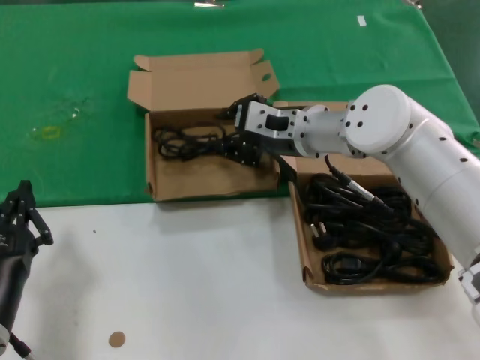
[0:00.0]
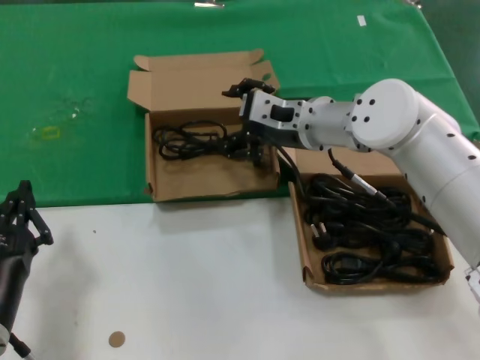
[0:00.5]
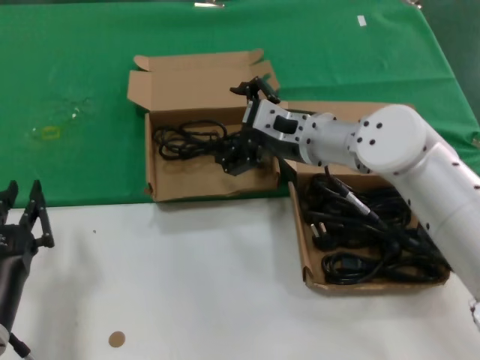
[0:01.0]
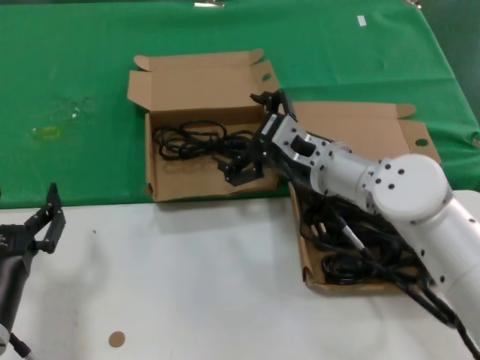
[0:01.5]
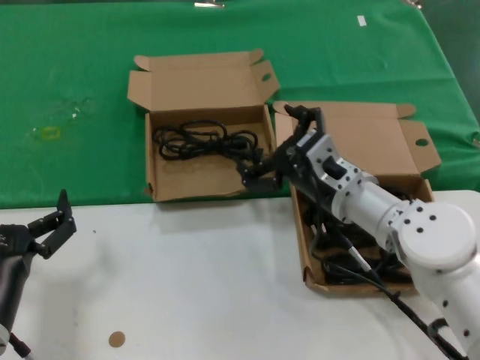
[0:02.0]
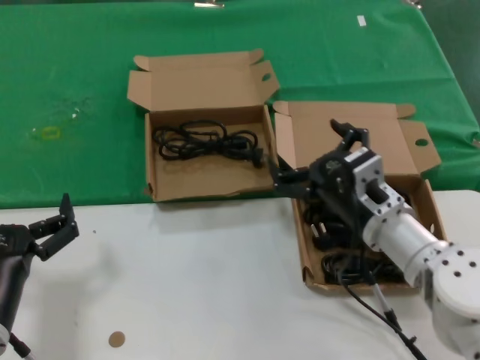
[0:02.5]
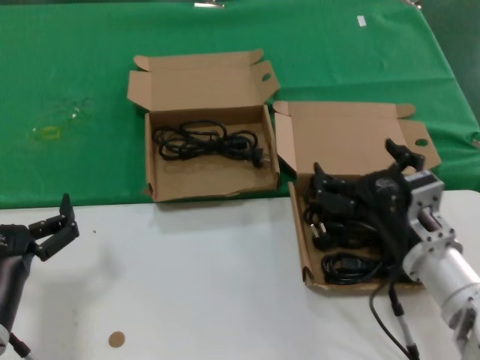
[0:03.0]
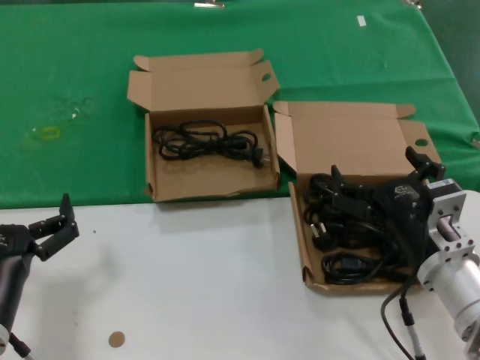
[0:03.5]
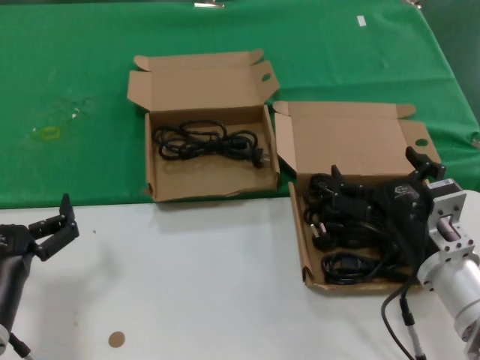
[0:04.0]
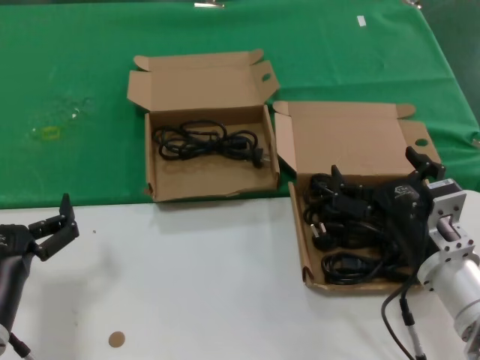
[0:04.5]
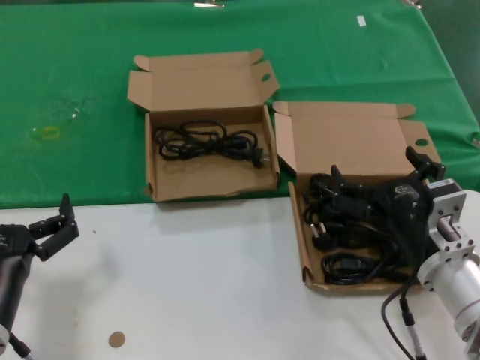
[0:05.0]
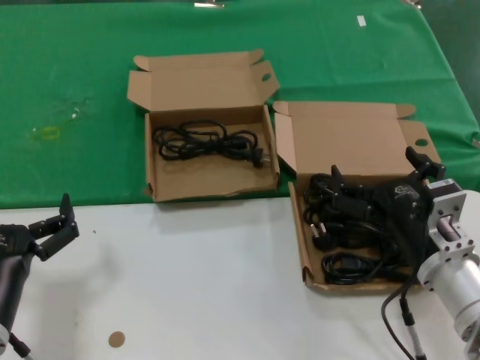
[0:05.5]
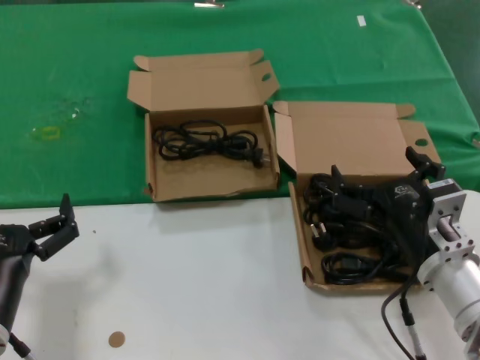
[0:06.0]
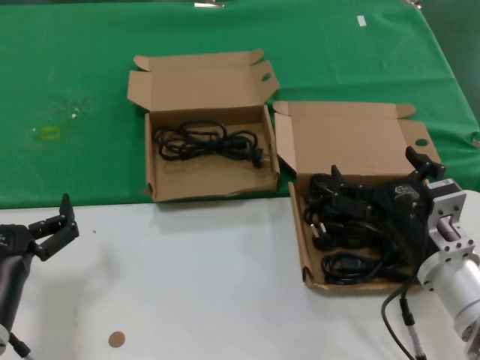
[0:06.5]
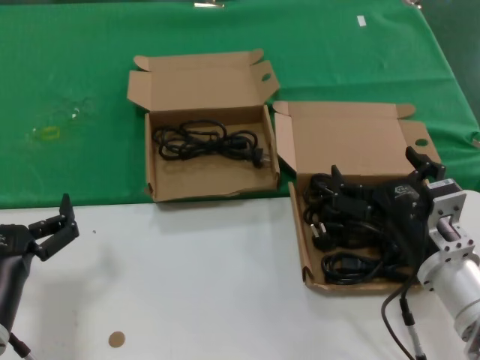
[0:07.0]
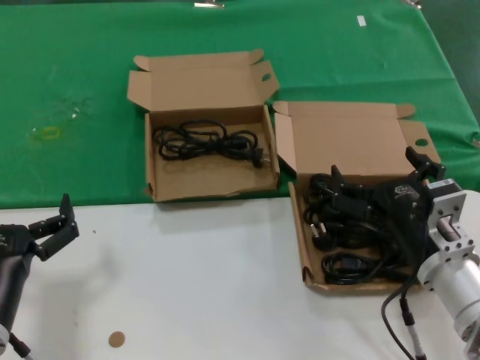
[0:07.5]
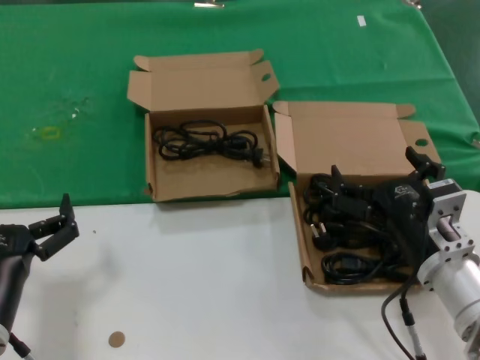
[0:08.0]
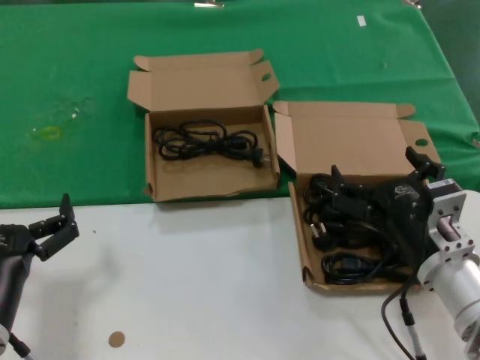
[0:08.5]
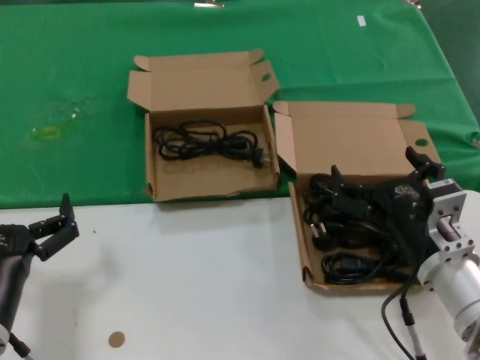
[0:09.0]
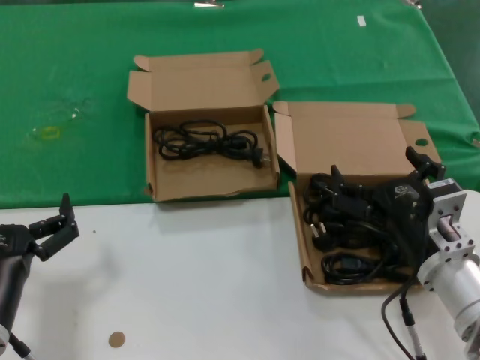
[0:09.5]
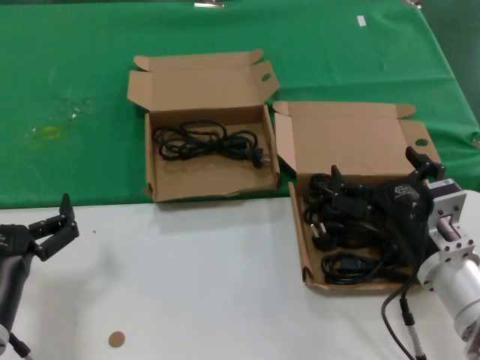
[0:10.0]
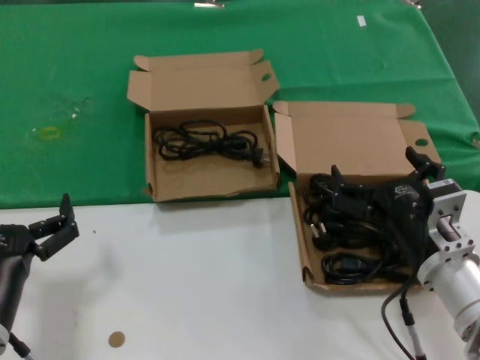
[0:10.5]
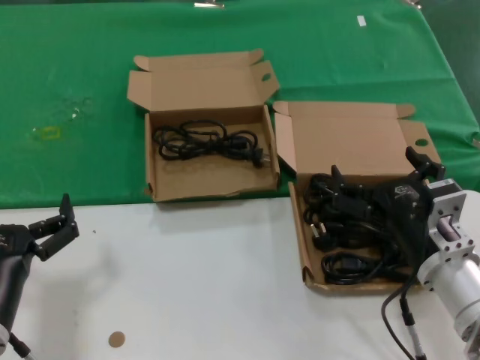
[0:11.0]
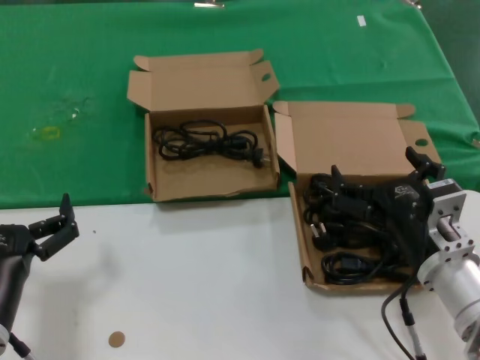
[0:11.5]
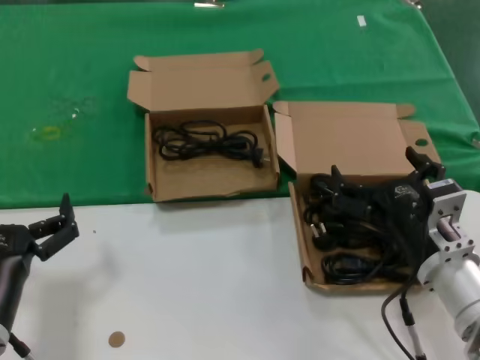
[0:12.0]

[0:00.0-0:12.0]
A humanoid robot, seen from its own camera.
Task of the whole recording: take the parts from the box containing them and put them into an empty box.
0:00.0 to 0:02.0: The right hand shifts about 10 cm backward and downward.
0:02.0 to 0:04.0: The right hand travels backward and to the right by some 15 cm.
0:04.0 to 0:12.0: Both hands stay about where they are.

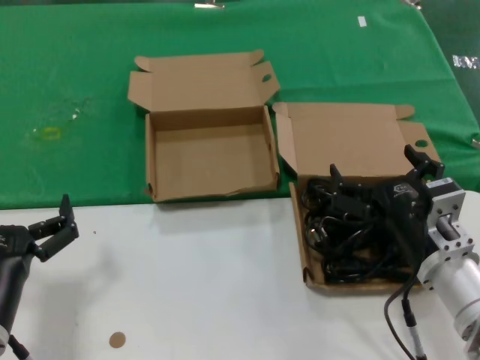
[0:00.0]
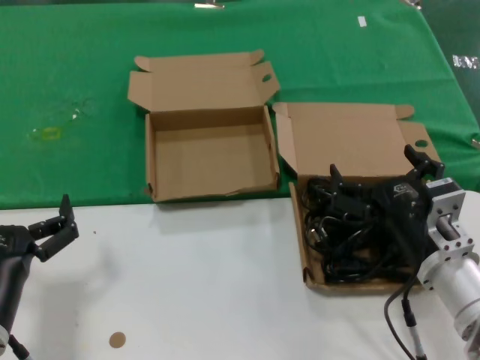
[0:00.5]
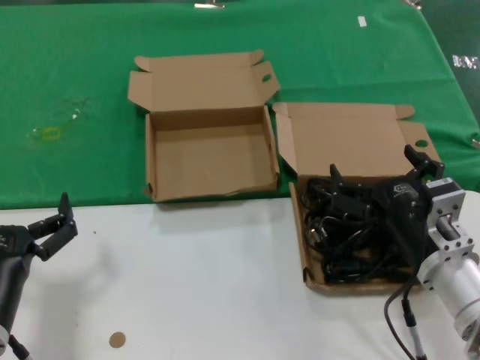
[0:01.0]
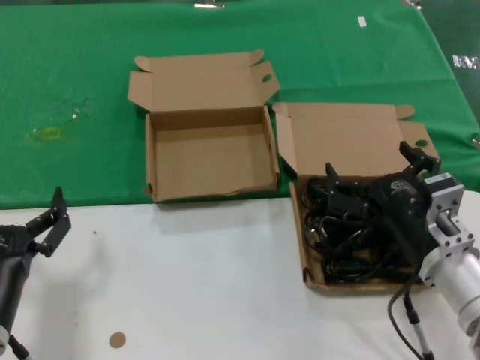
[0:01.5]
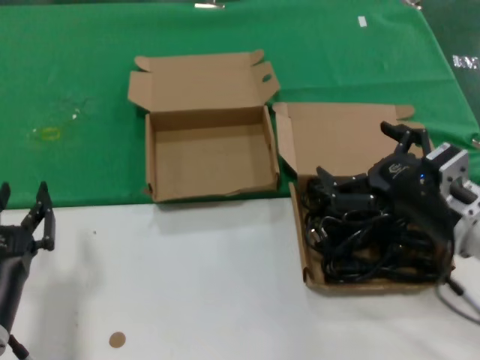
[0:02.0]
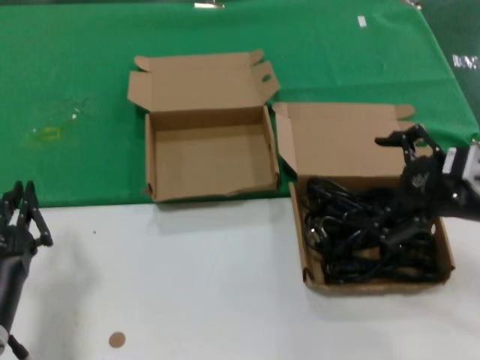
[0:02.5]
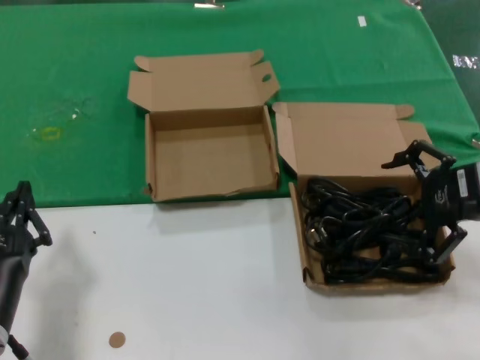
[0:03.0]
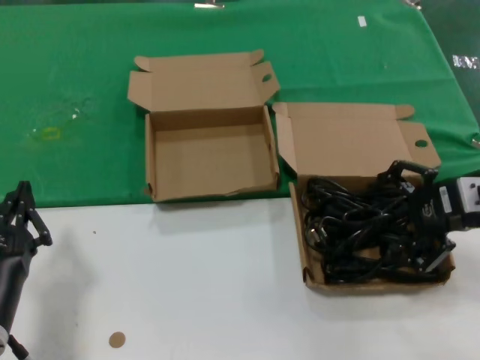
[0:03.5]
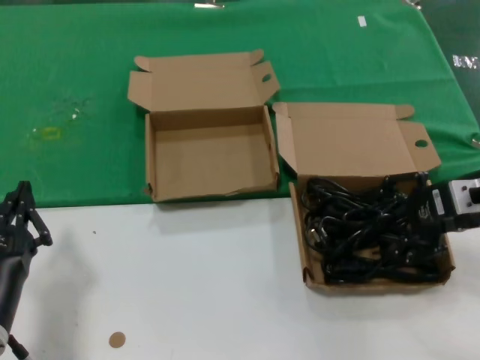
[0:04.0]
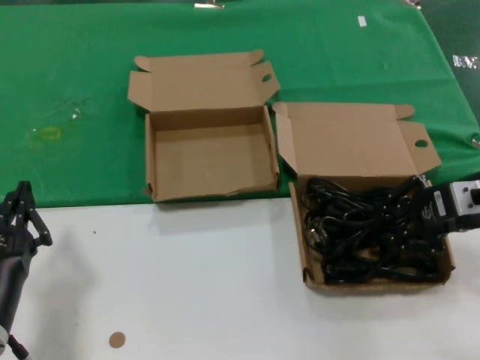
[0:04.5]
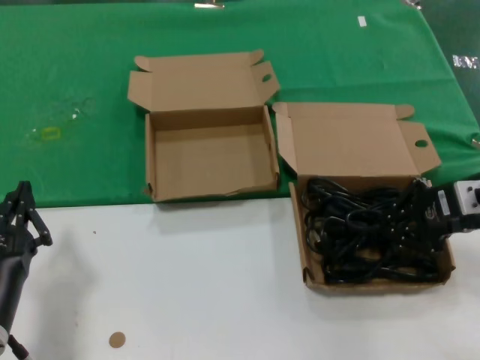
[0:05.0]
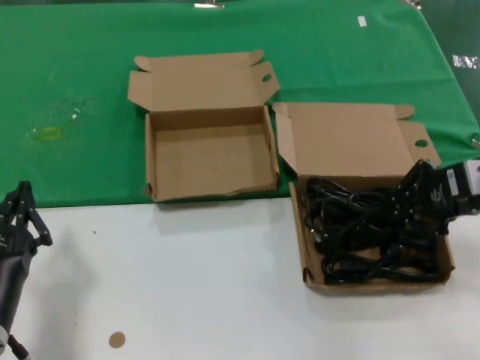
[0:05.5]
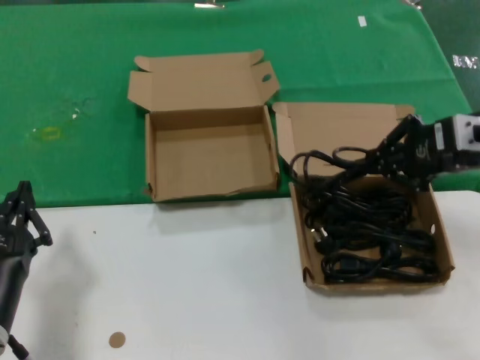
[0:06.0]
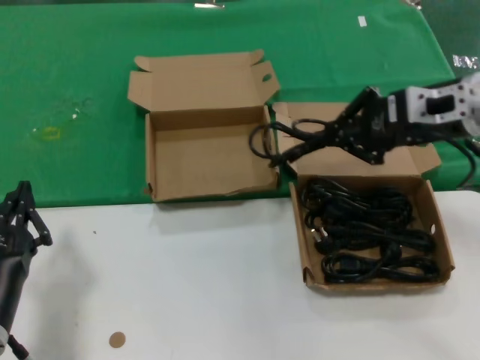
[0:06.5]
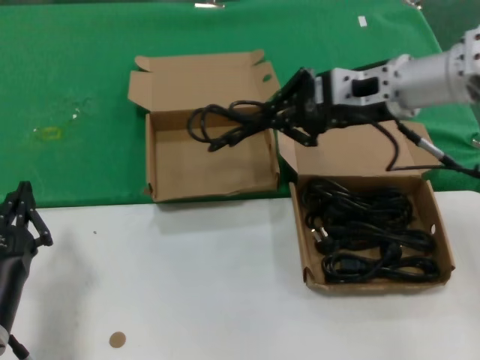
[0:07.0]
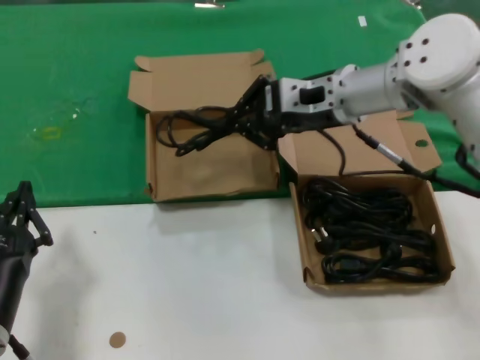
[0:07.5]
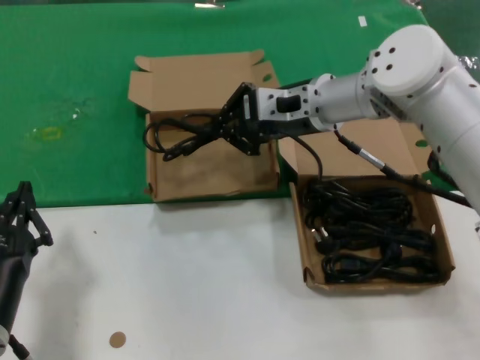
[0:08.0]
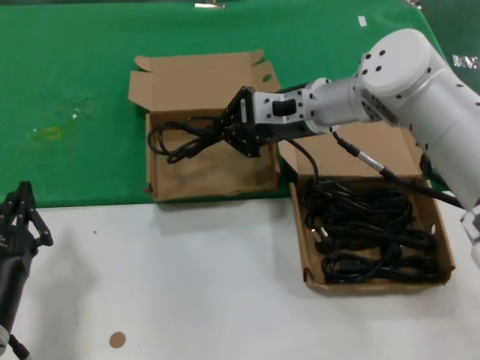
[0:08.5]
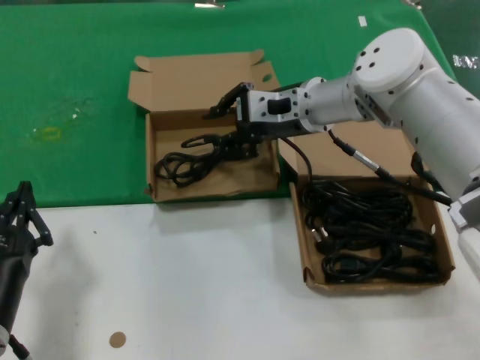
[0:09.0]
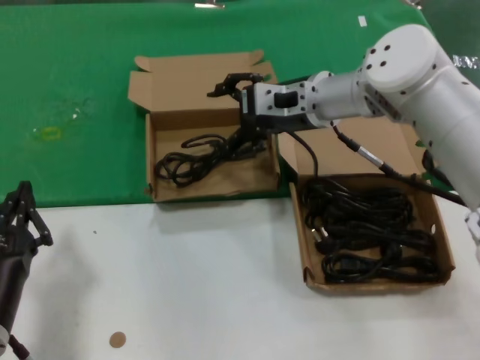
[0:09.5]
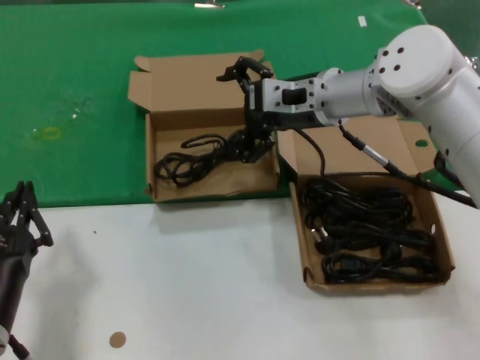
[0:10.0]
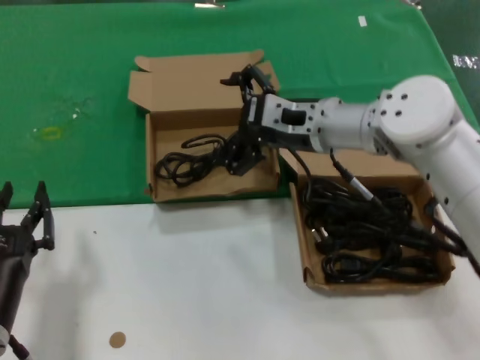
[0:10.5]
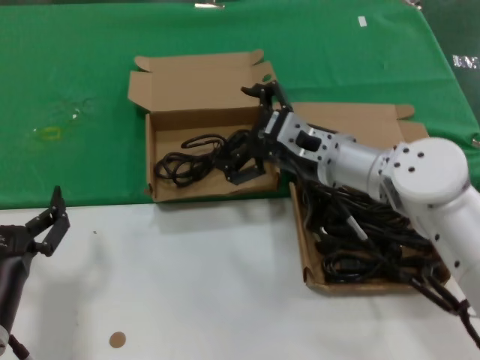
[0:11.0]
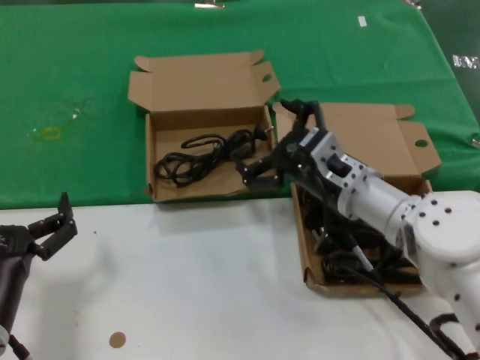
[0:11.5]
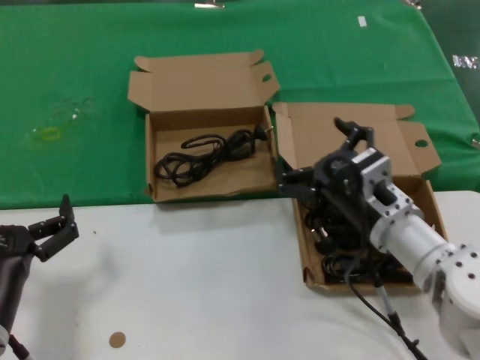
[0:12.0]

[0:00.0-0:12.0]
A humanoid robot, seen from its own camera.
Task of the whole recording: take the parts from the box containing them and put them into an empty box.
Step, 0:00.0 to 0:04.5: Grasp the data cable.
Step, 0:05.0 to 0:08.5: Place the data cable in the another box.
0:00.0 to 0:02.0: The right hand shifts some 5 cm upward.
0:02.0 to 0:04.0: The right hand shifts about 15 cm to the right, forward and upward.
0:04.0 to 0:06.0: The right hand heads upward, covering roughly 5 cm.
0:06.0 to 0:08.0: The right hand moves to the left and forward, approximately 25 cm.
0:08.0 to 0:10.0: The hands stay close to where they were, moving slightly.
0:10.0 to 0:12.0: The right hand moves downward and backward, roughly 20 cm.

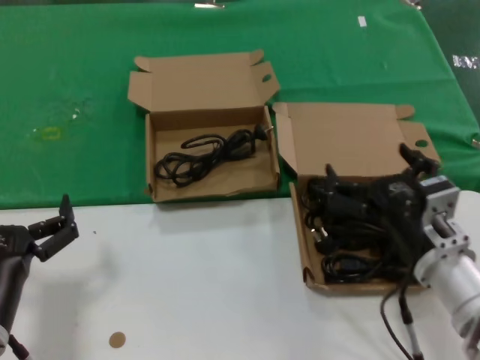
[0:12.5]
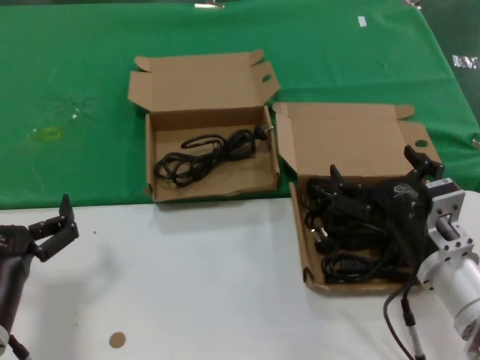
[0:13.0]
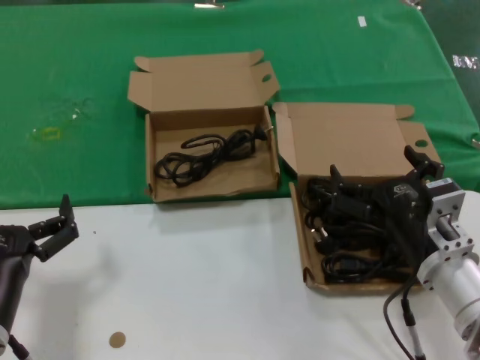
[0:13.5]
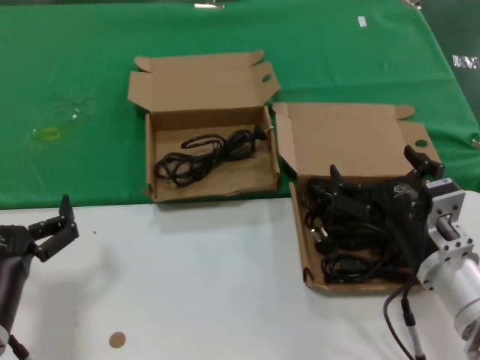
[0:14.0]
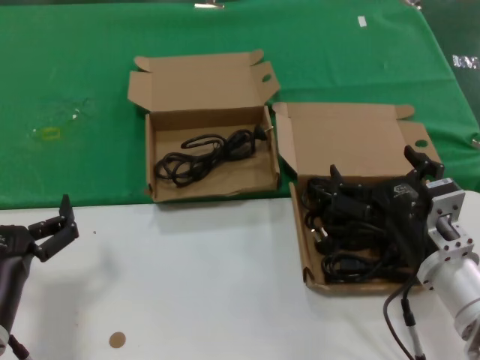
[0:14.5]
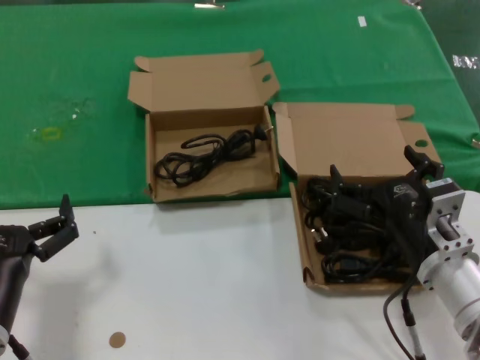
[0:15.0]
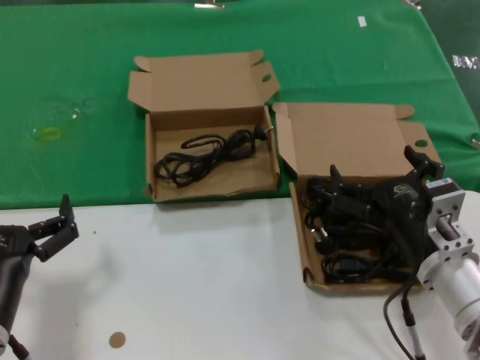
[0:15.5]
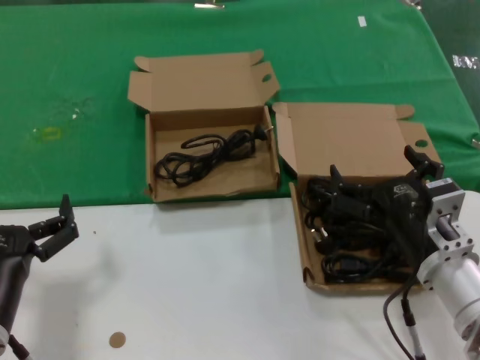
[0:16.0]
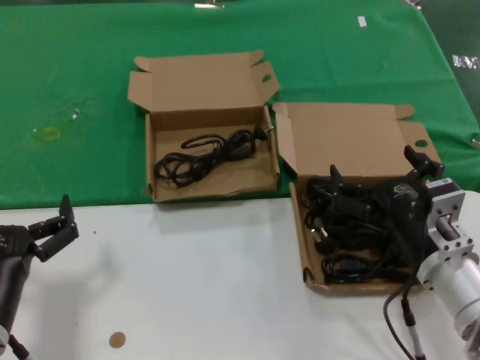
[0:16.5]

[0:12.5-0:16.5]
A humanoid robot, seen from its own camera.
Task of the whole recording: take the parts from the box containing them and put them into an empty box.
0:12.5 to 0:16.5: The two hands keep their place.
